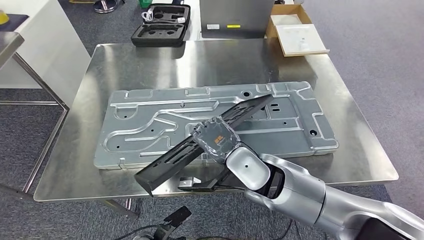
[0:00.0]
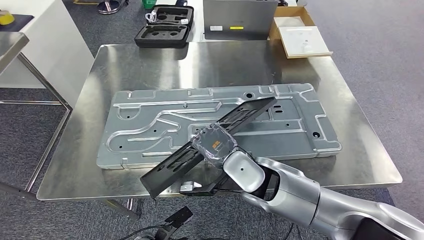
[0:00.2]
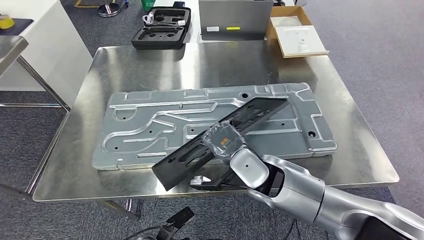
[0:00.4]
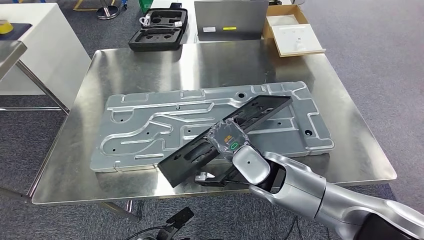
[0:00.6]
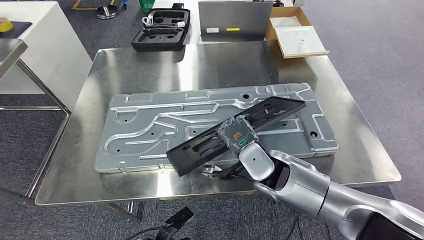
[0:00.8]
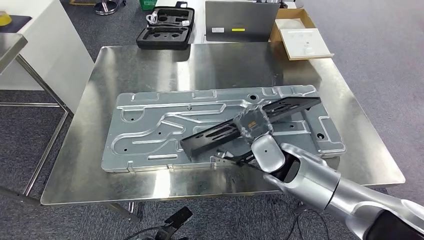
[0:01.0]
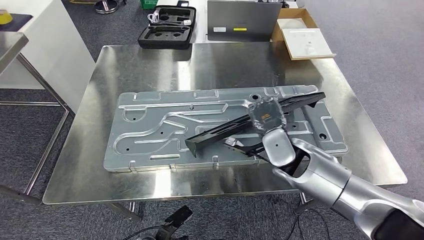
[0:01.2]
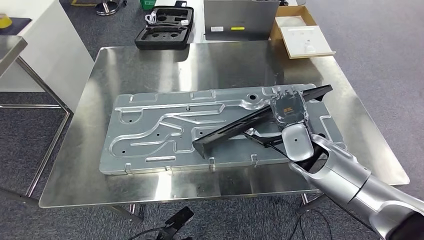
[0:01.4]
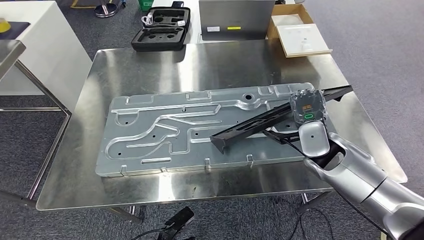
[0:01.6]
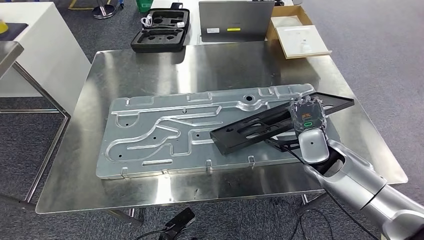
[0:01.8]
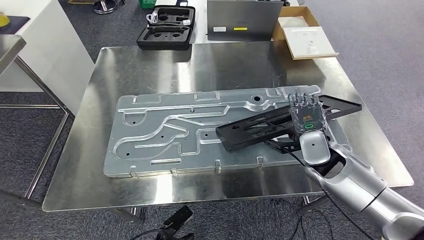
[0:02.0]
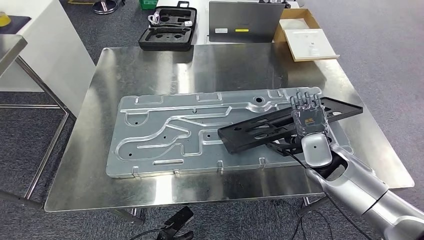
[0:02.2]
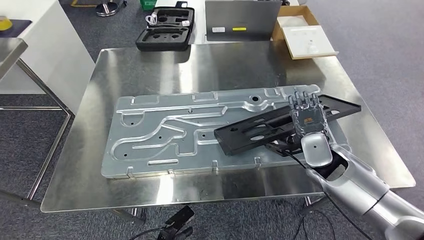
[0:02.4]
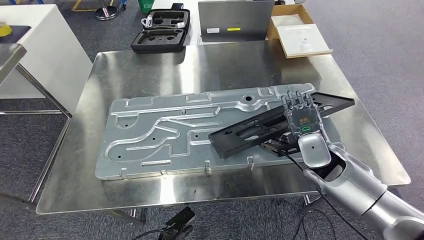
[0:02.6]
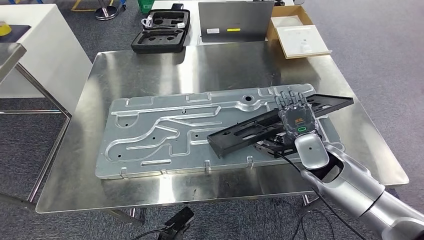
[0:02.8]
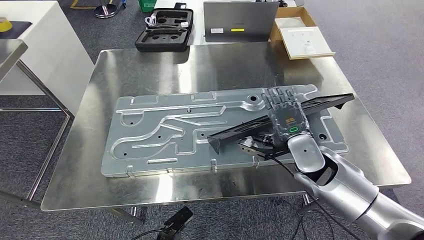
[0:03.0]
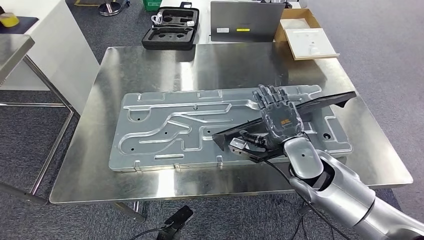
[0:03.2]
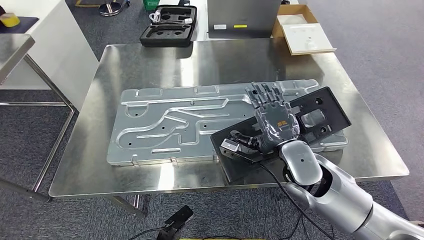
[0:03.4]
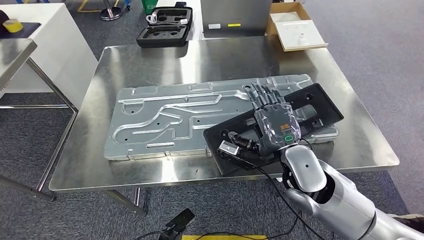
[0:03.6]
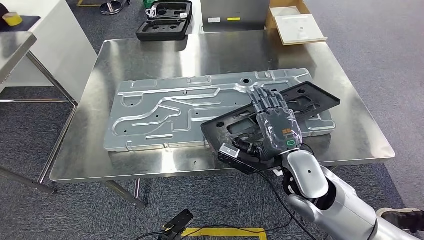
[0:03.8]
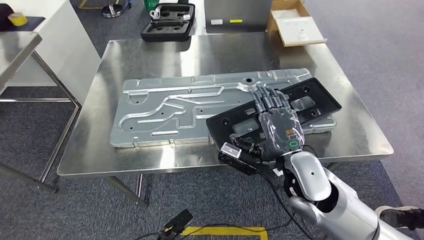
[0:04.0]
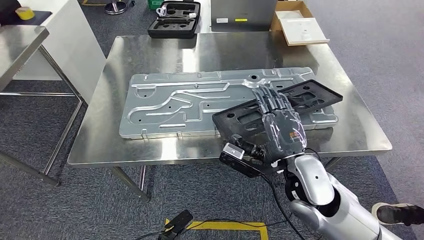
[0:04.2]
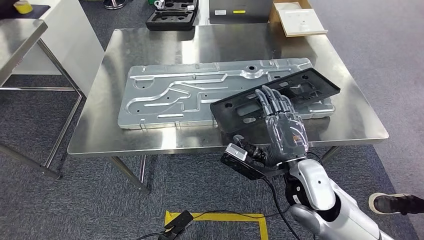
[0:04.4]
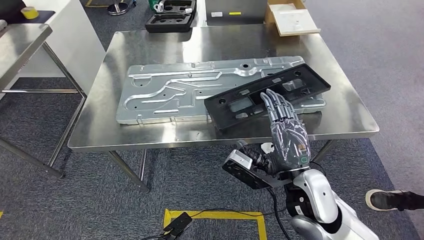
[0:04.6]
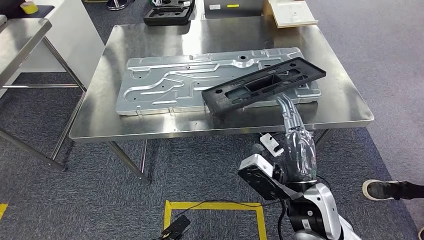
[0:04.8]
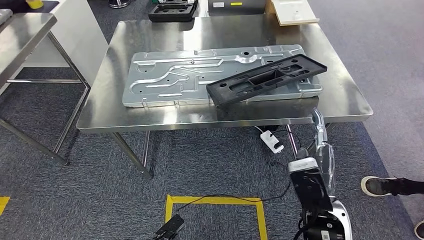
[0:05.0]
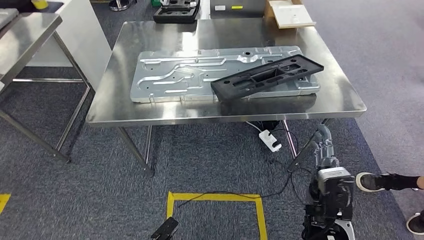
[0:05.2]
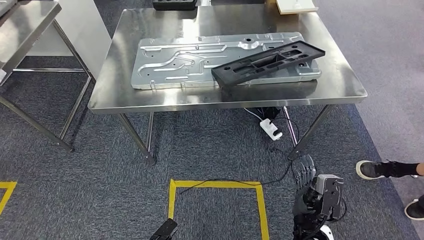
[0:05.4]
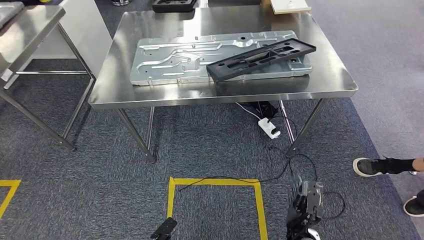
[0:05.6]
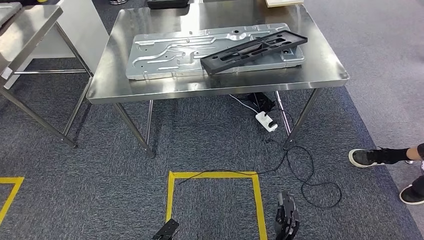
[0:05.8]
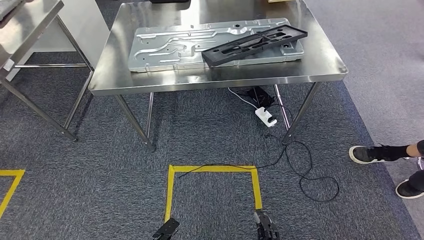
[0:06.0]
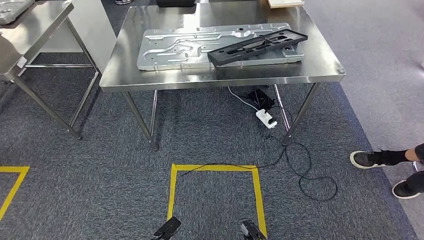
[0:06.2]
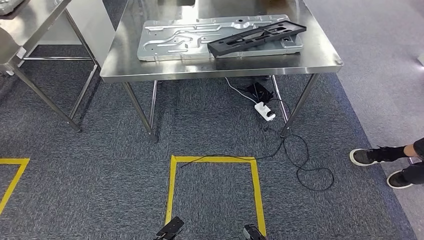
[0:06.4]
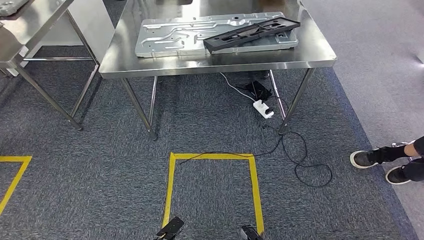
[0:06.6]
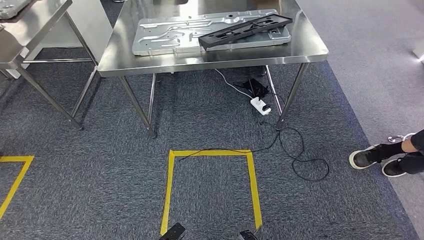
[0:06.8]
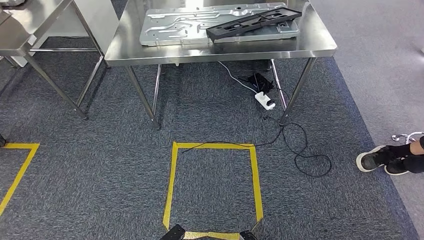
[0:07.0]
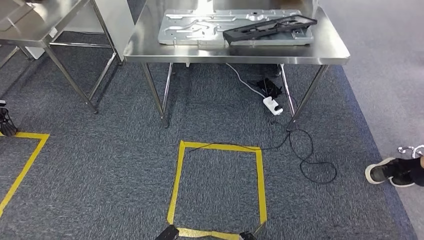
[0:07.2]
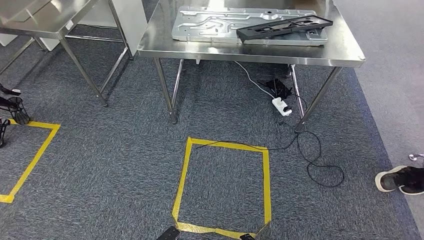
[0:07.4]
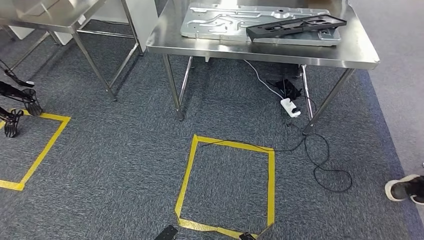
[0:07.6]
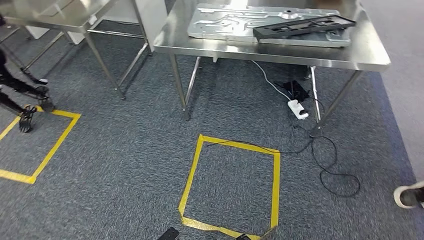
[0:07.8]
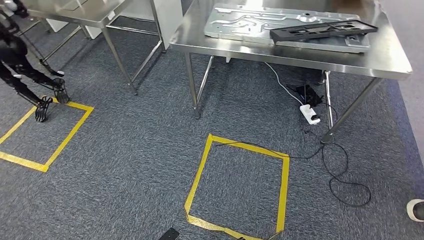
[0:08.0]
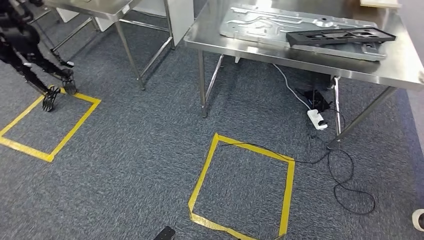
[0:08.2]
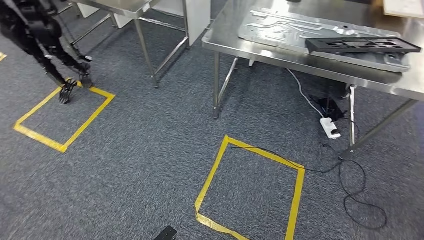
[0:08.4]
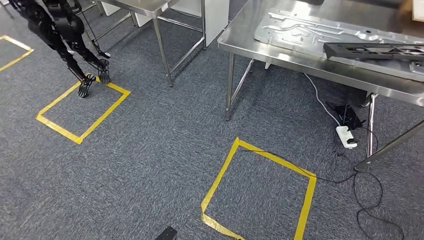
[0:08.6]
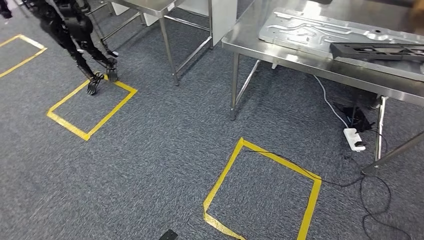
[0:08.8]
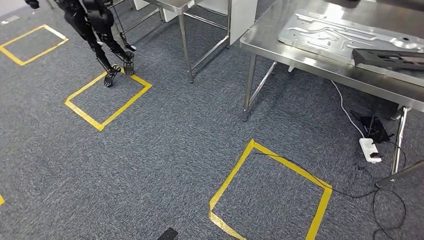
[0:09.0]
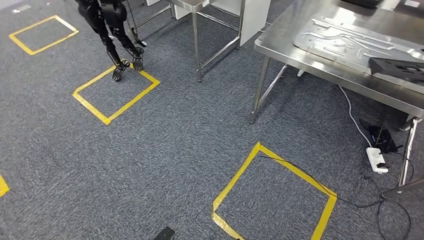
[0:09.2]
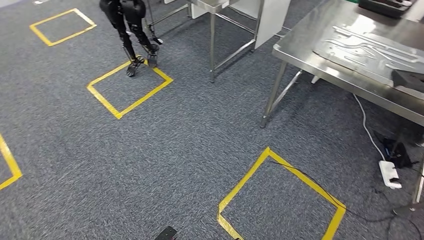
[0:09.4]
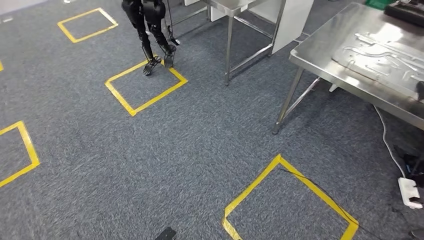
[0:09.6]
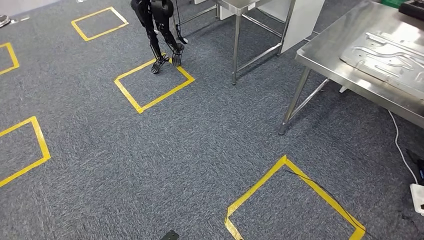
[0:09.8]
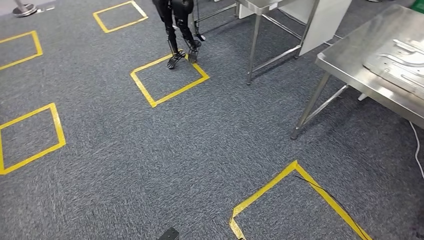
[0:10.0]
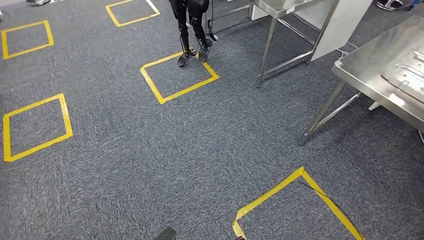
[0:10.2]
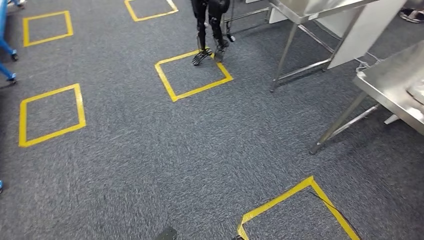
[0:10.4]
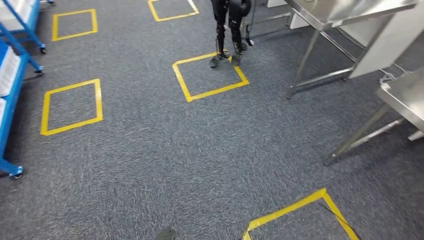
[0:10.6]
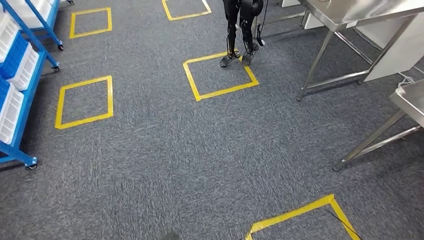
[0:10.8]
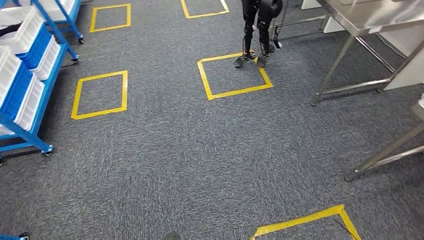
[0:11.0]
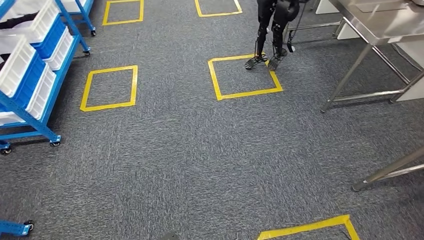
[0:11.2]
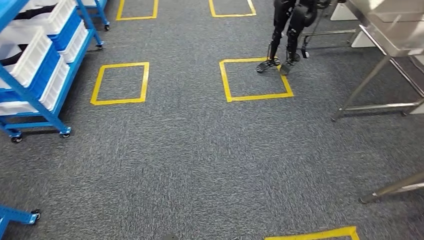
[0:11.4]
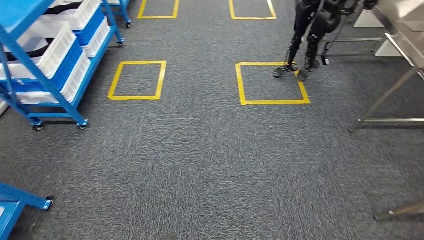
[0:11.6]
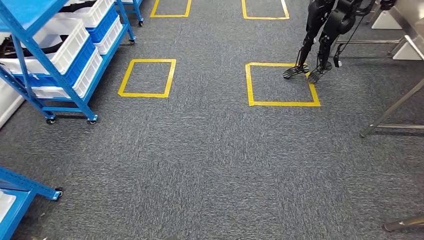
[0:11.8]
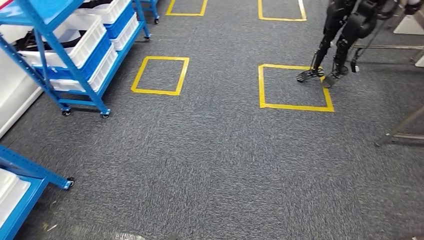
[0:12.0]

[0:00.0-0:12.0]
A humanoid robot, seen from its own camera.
Step, 0:00.0 to 0:04.0: Insert the large material into the corresponding slot on the workbench.

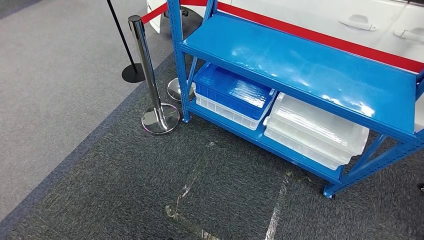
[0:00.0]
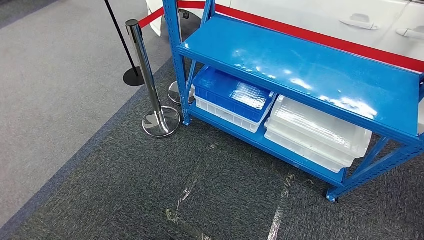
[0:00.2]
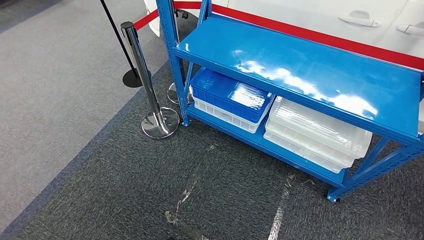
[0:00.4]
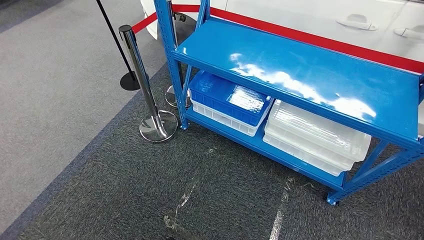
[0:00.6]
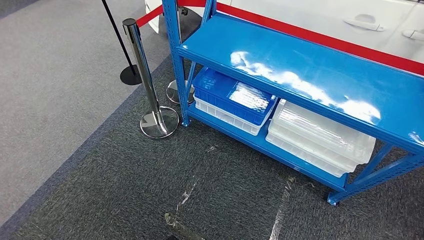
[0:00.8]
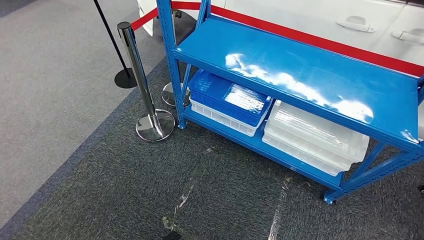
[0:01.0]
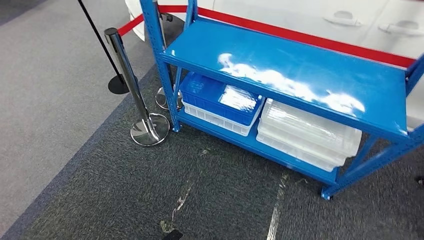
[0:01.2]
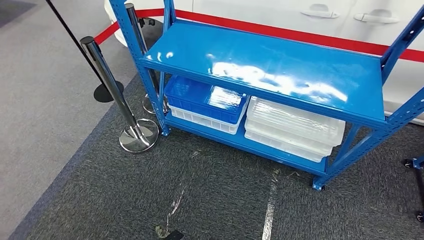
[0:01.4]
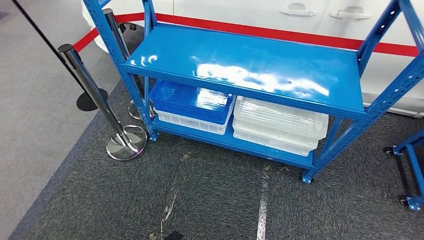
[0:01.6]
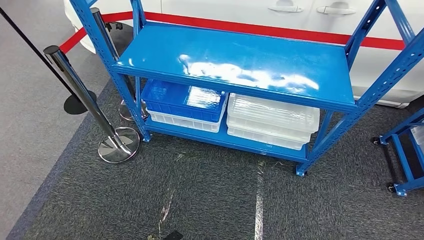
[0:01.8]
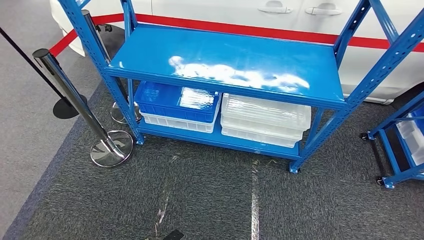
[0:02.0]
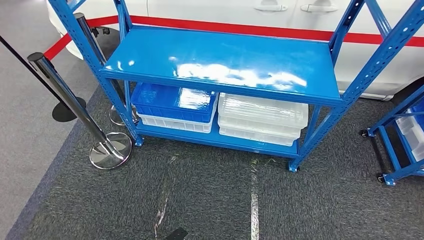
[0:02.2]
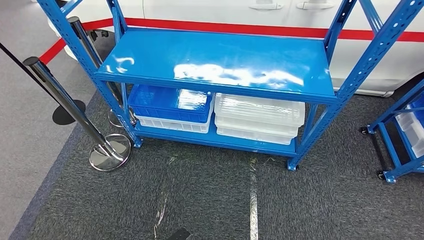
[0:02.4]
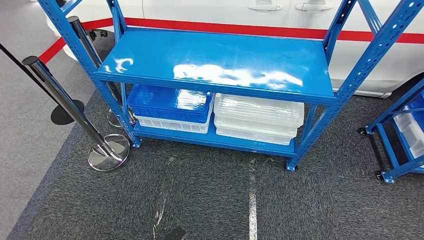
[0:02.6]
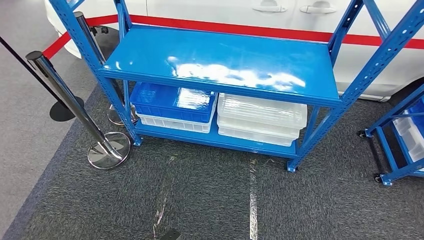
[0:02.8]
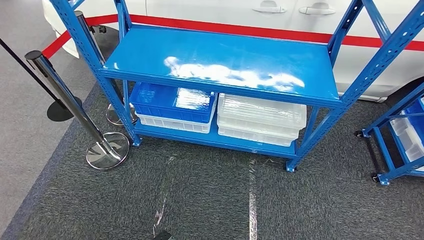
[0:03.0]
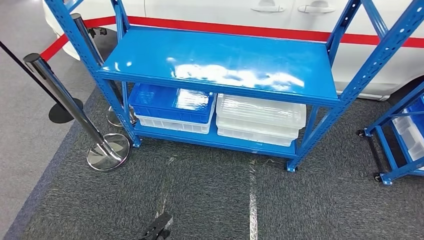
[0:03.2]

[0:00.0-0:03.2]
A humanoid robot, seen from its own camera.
Step, 0:00.0 to 0:03.2: Move to the initial position of the shelf.

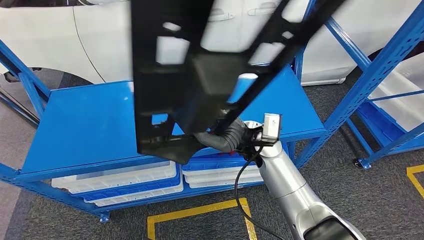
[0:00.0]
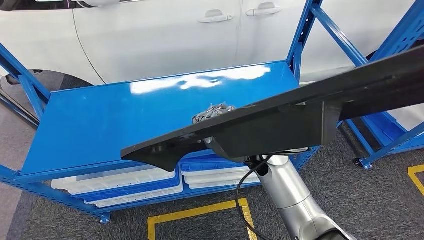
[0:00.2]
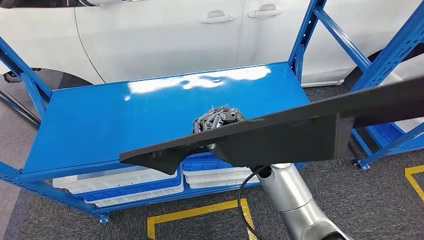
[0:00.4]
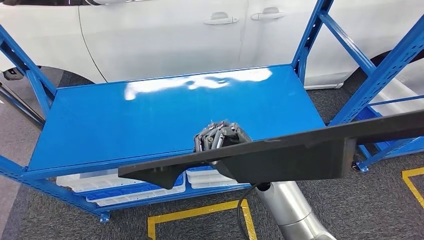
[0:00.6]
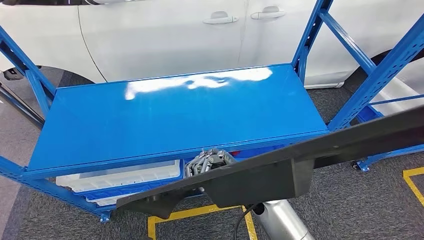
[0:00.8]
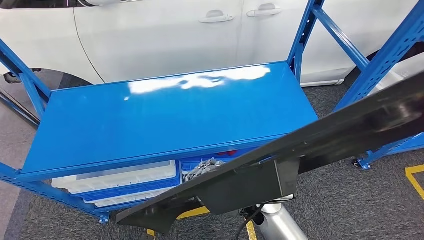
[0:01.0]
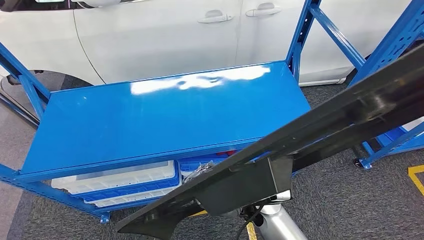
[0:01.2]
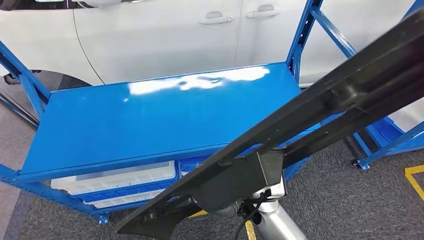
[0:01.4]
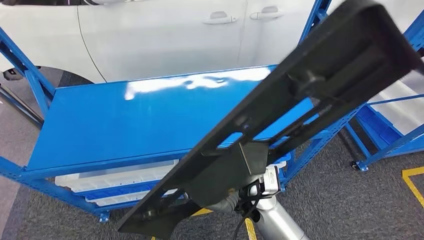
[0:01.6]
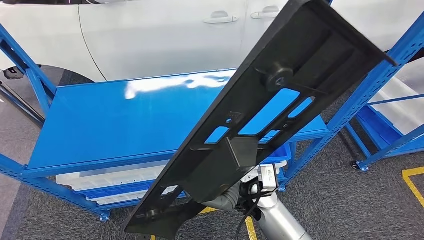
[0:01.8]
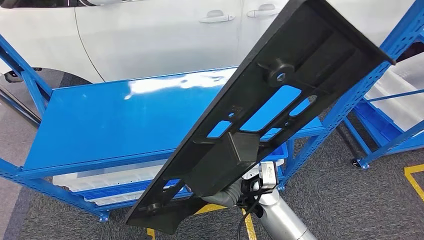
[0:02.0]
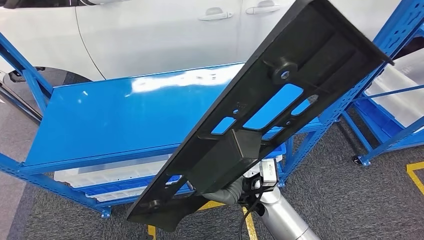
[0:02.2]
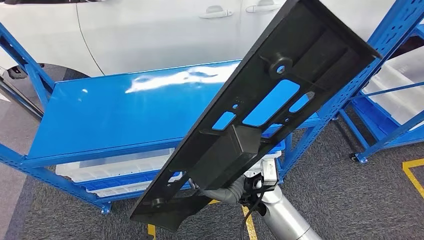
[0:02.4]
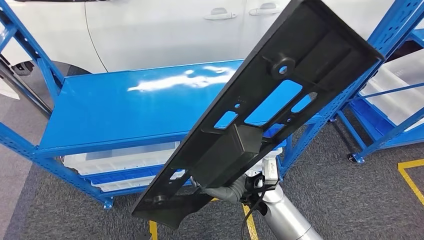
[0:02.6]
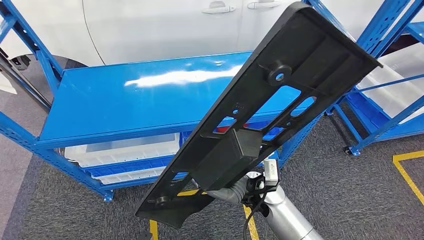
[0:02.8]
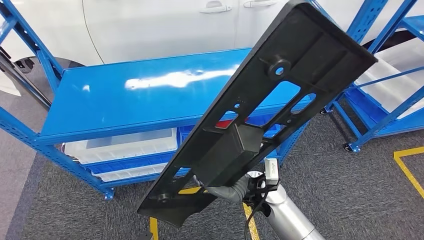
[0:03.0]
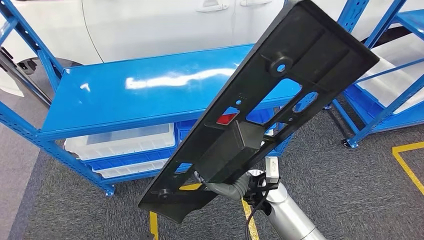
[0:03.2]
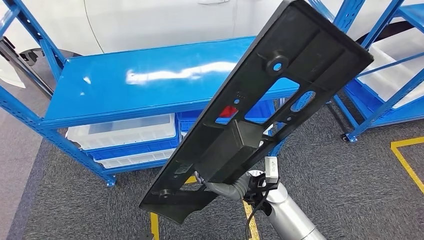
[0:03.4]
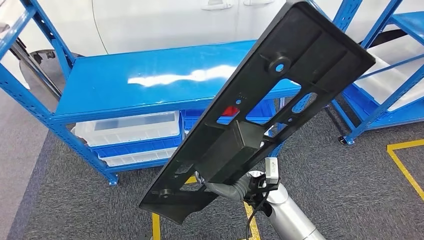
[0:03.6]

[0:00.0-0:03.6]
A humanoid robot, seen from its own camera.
Step, 0:00.0 to 0:02.4: Pick up the large material from the shelf.
